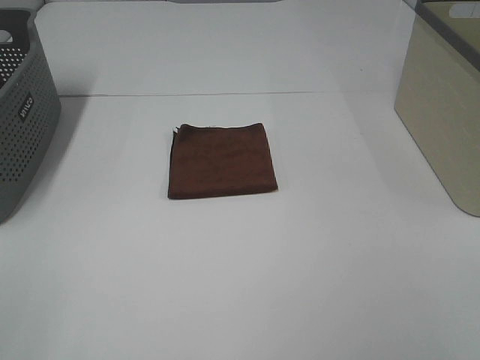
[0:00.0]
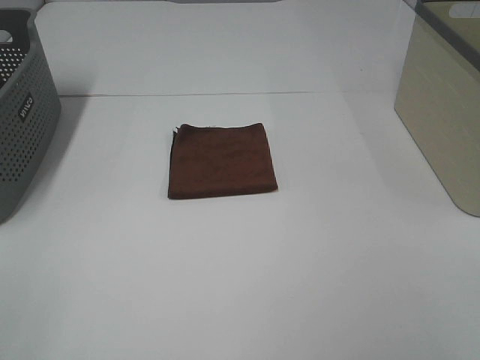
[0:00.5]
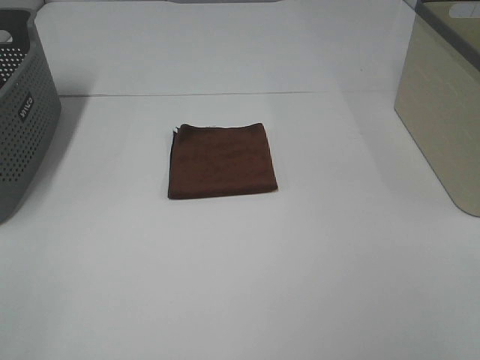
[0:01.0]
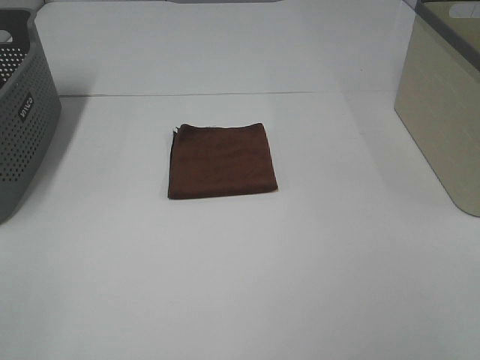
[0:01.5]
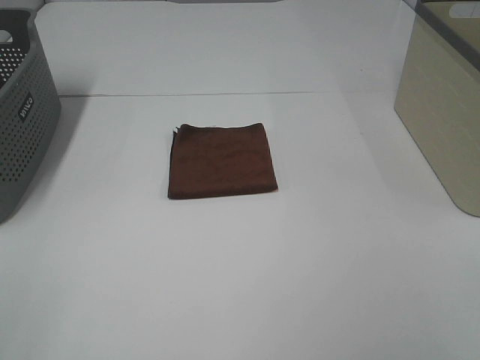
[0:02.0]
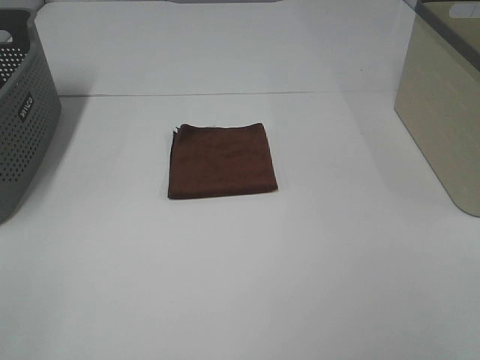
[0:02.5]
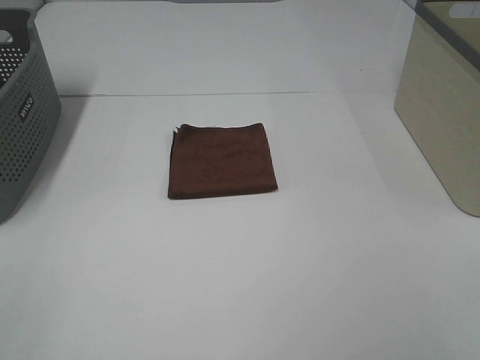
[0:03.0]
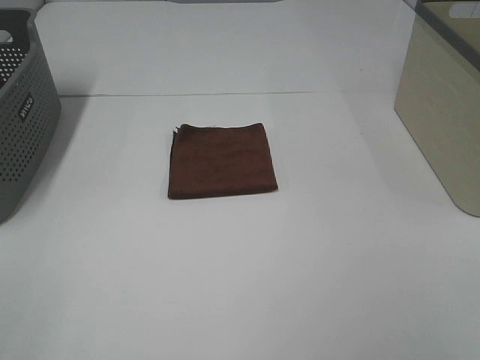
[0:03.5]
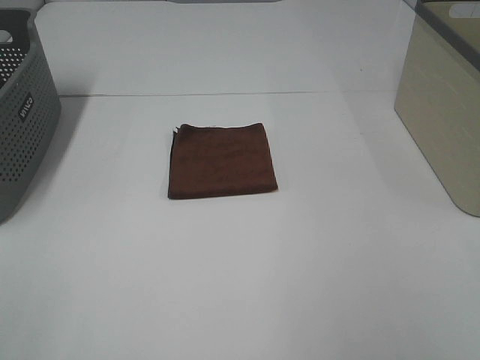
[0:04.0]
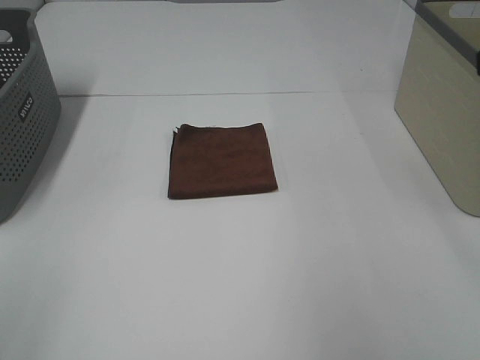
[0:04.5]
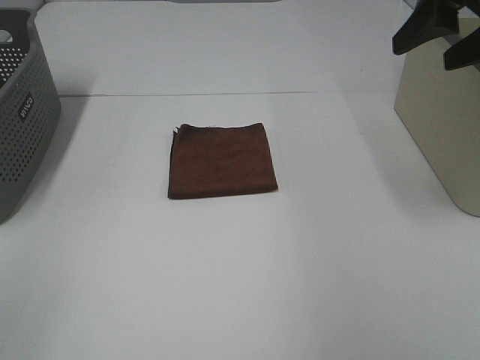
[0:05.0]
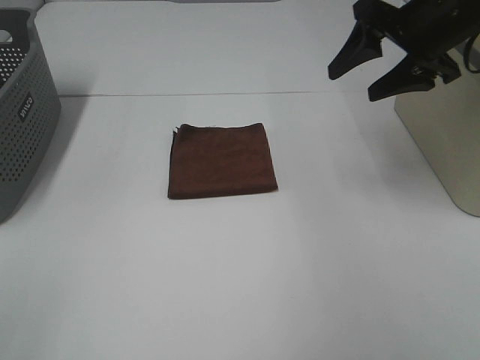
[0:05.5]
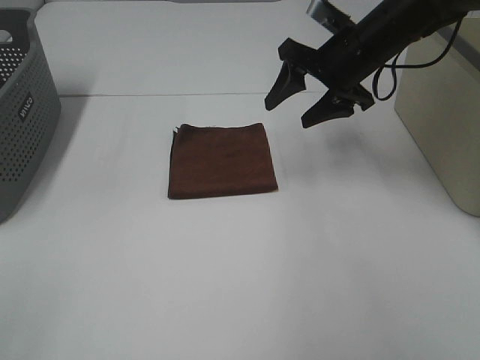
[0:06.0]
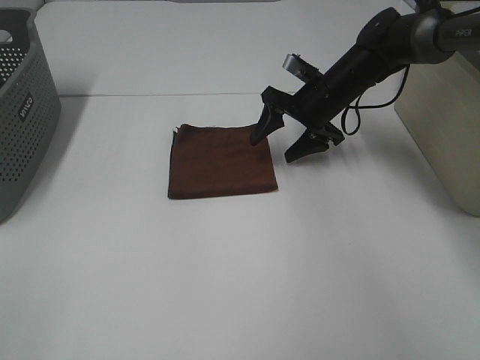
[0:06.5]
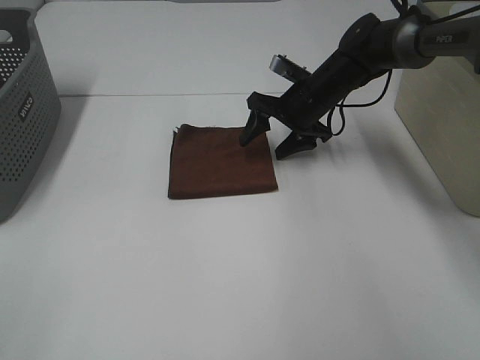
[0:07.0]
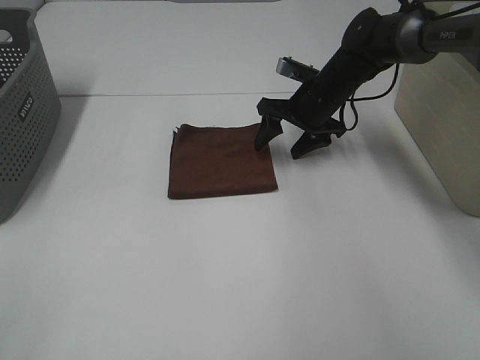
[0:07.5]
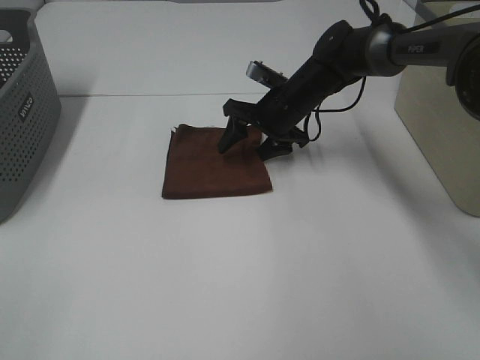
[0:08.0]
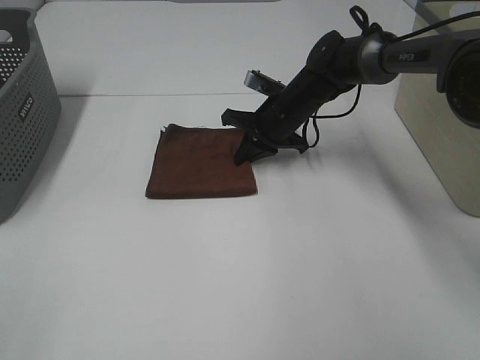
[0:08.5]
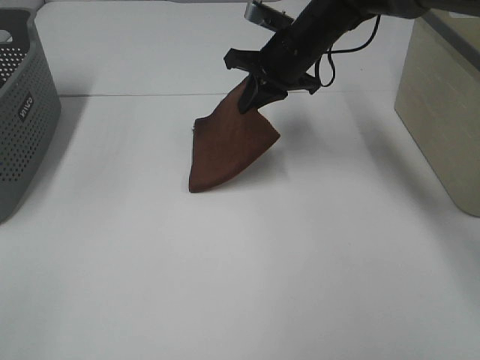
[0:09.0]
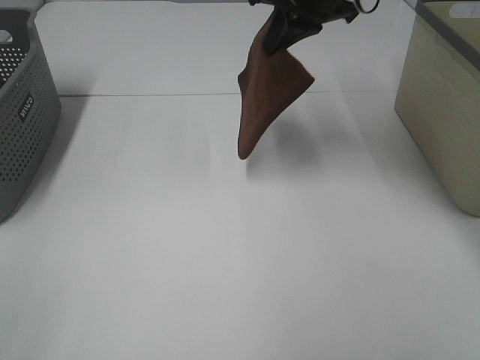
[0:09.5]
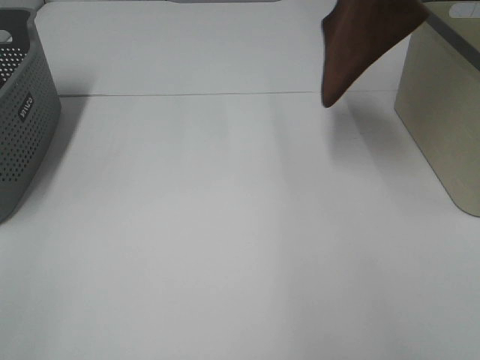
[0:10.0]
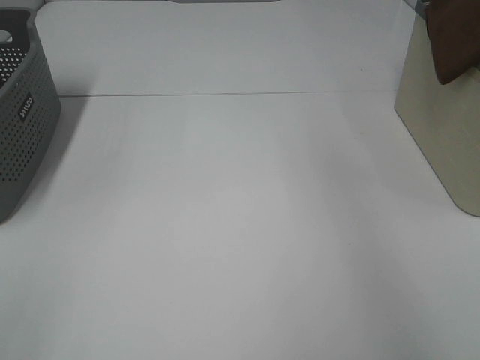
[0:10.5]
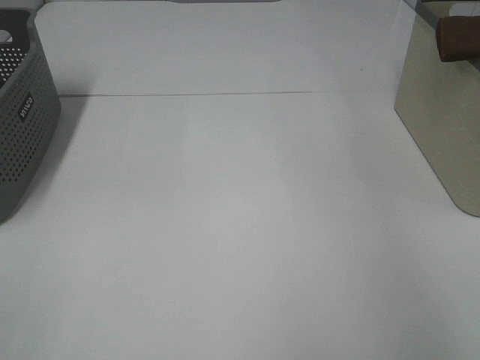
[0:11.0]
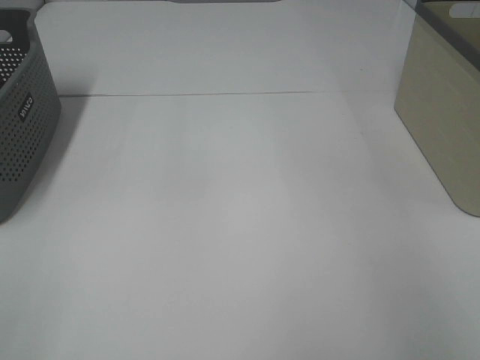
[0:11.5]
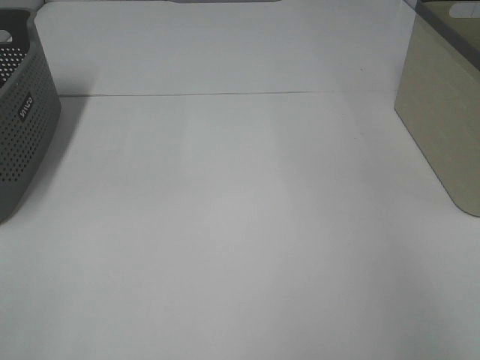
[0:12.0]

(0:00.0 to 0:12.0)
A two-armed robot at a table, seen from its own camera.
Step, 0:00.0 - 0:08.5: Right hand: grab the folded brown towel.
Step, 0:09.0 - 0:11.5: Right hand: place the brown towel in right basket.
0:00.0 - 0:02.0: Both grippers stay about where they are.
0:04.0 - 0:06.0: The right gripper moves forward, some 35 cm.
0:06.0 - 0:08.0: The right gripper moves downward and to the left, about 10 cm.
0:08.0 - 0:10.0: The right gripper goes about 30 cm upward and to the right, and closes its fingers.
0:10.0 - 0:12.0: The right gripper moves to the right, about 20 cm, and opens its fingers.

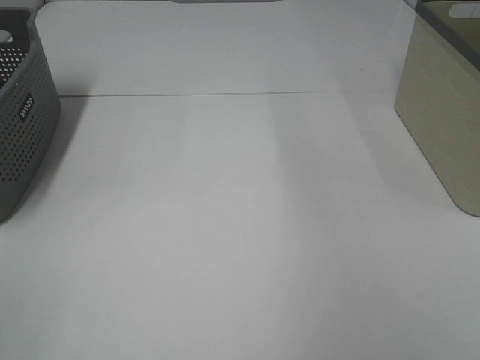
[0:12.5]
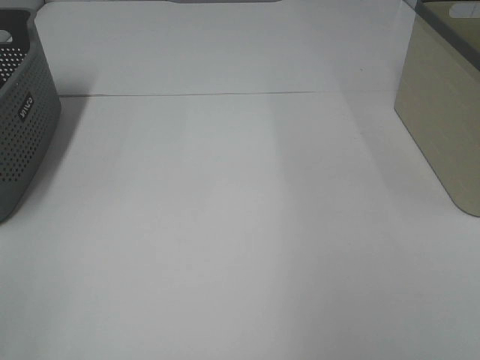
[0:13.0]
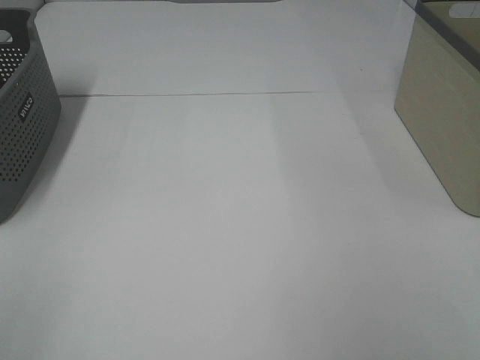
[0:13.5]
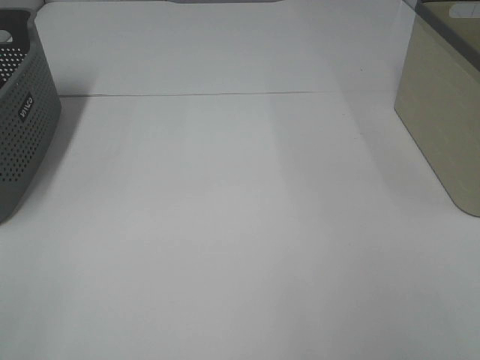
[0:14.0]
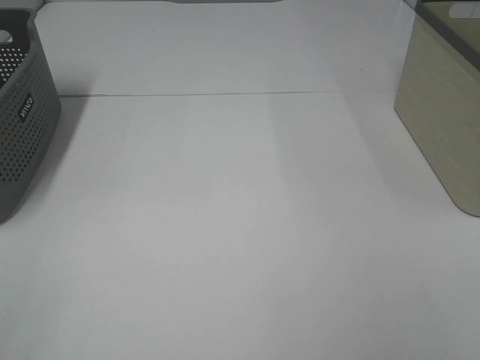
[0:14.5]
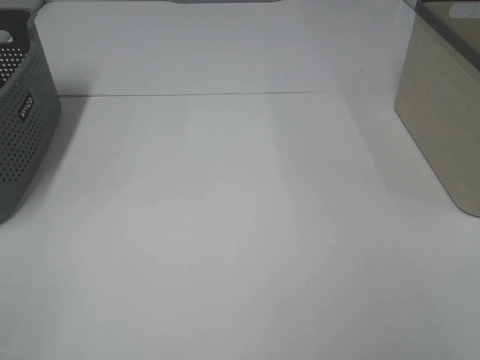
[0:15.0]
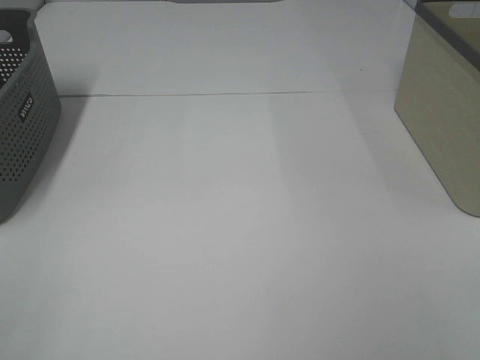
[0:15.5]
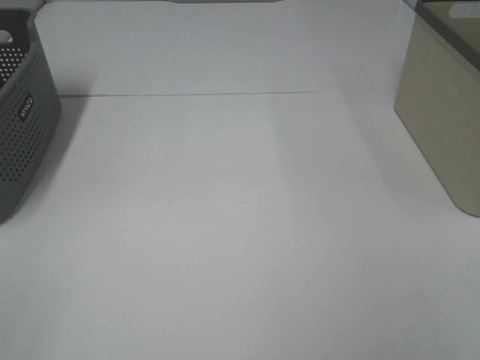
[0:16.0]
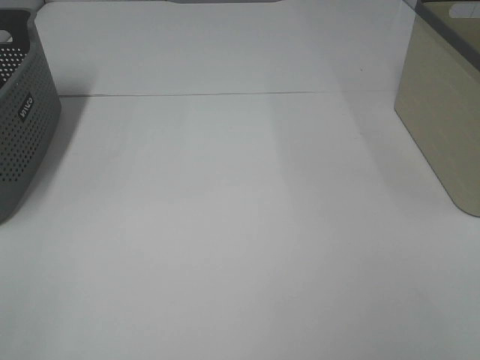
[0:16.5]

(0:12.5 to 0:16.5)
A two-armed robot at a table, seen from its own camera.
0:14.5 - 0:16.5: The two grippers keep their place.

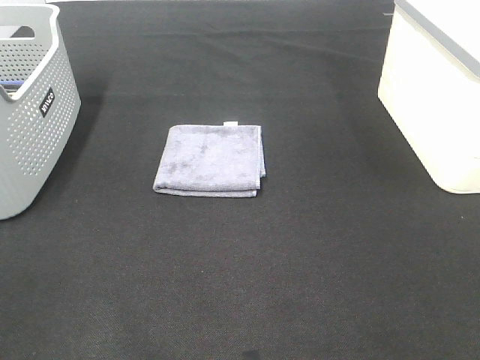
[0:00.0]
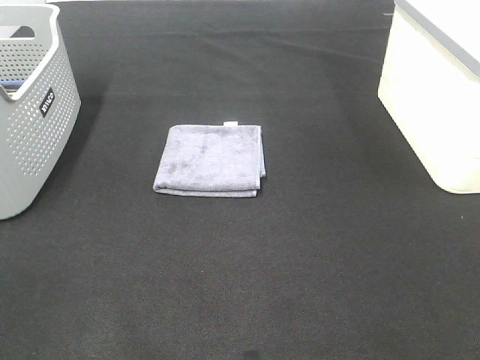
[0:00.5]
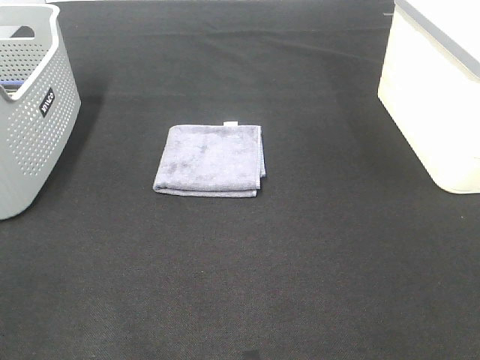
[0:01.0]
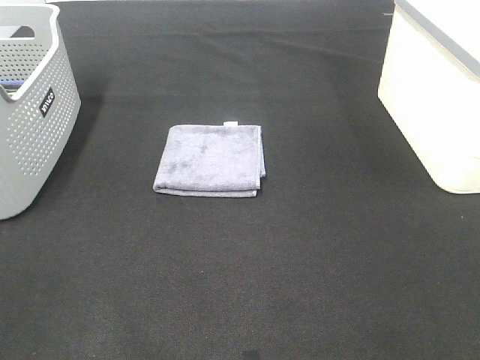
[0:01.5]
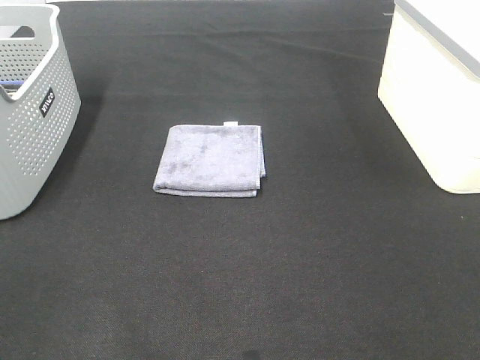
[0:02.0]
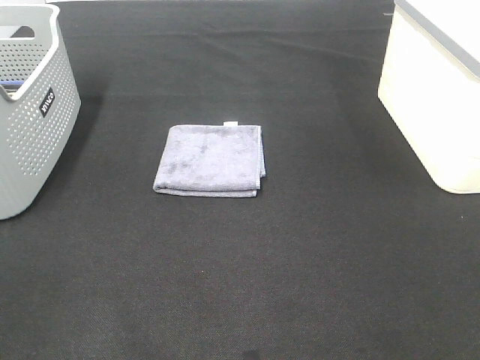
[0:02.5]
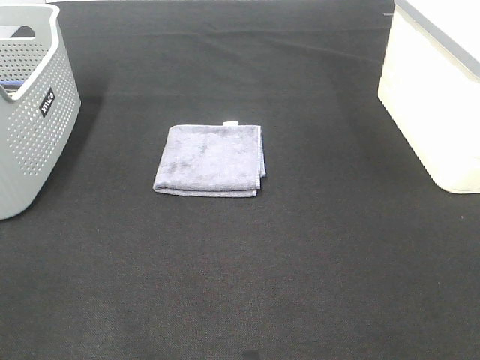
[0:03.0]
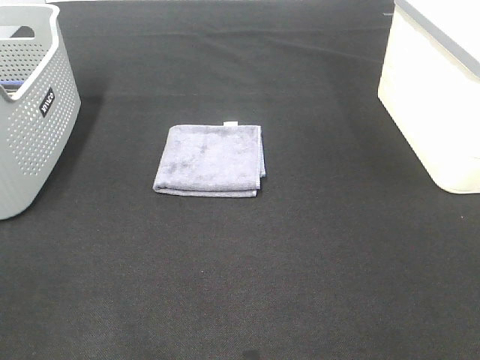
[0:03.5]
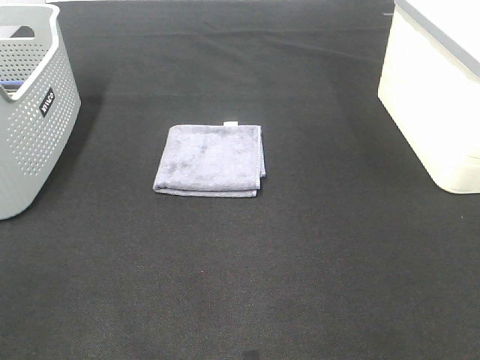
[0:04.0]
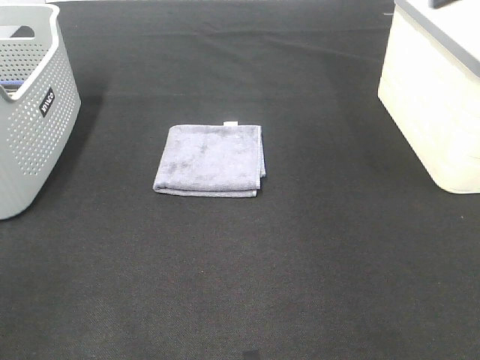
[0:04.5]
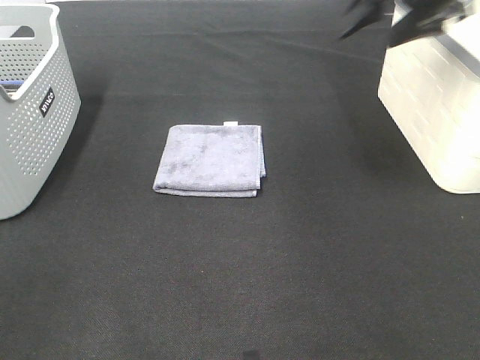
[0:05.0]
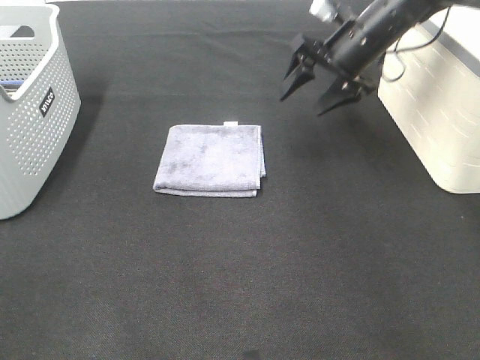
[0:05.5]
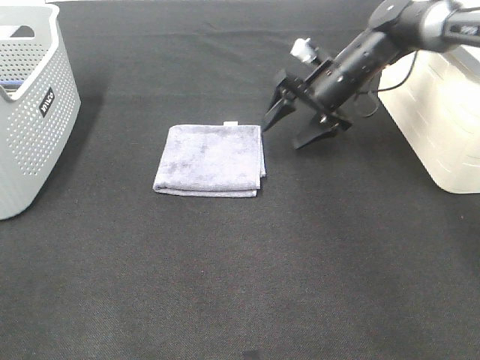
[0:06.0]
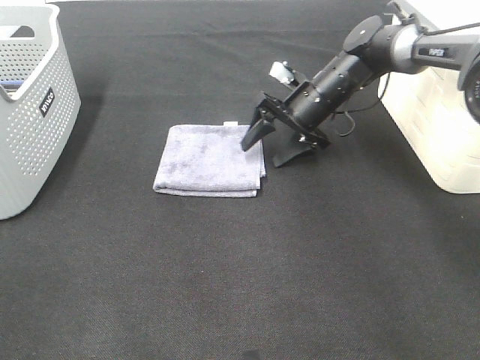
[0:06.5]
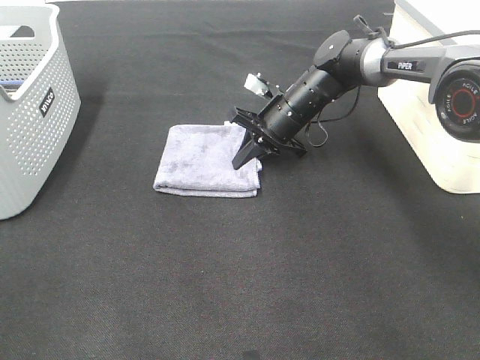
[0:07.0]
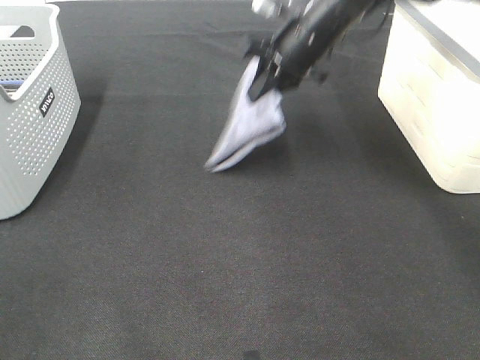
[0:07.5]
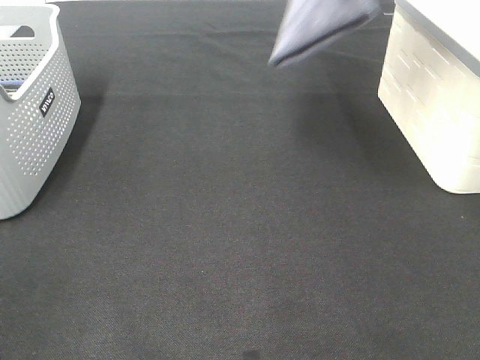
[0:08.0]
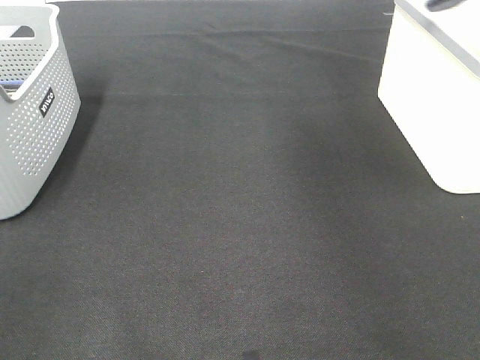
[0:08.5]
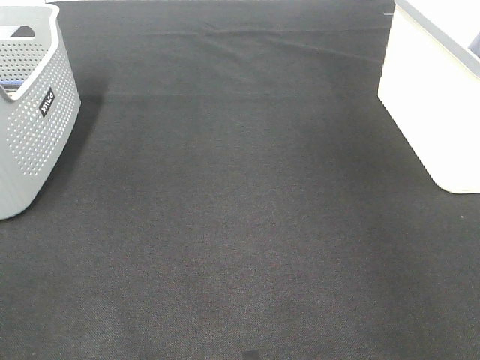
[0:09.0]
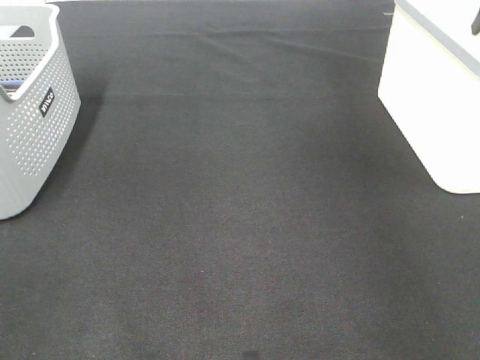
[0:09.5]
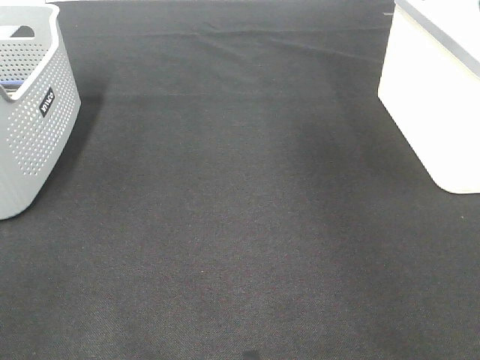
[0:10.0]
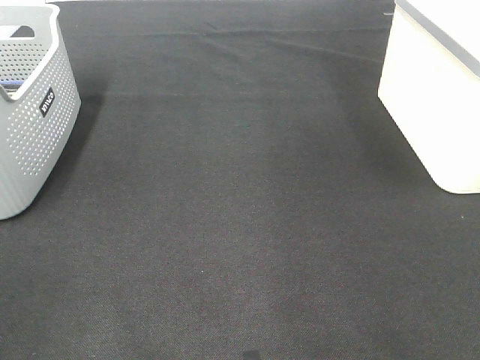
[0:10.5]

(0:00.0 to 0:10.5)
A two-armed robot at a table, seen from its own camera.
Step, 0:00.0 - 0:07.0: Right hand: grab the folded grey towel.
Step, 0:07.5 - 0:09.5: Right hand: place the grey towel in right basket.
0:00.0 - 0:02.0: Both grippers stay put.
0:04.0 - 0:06.5: The right gripper is displaced forward, downward and to the left by about 50 cm.
0:06.5 - 0:08.5: The right gripper heads upward and to the right, covering roughly 40 cm, and closes.
